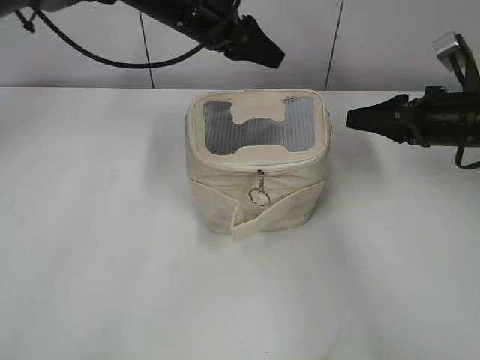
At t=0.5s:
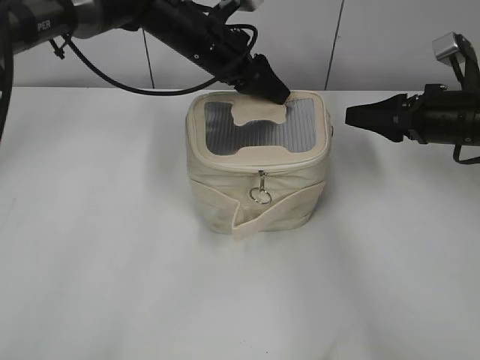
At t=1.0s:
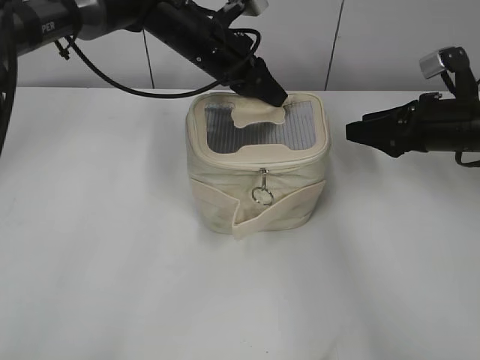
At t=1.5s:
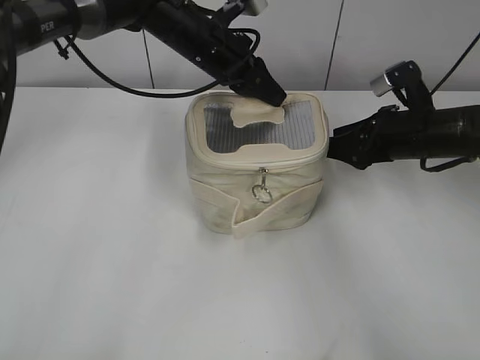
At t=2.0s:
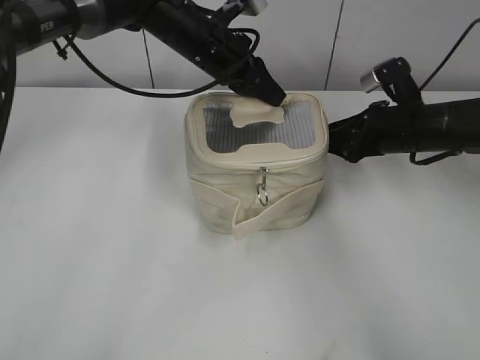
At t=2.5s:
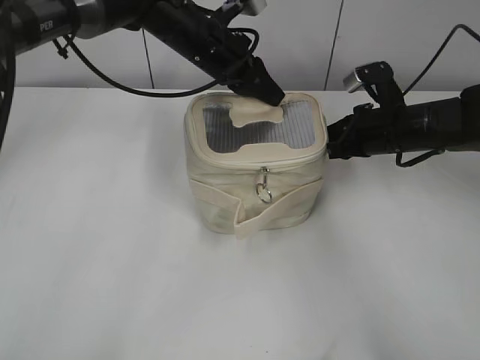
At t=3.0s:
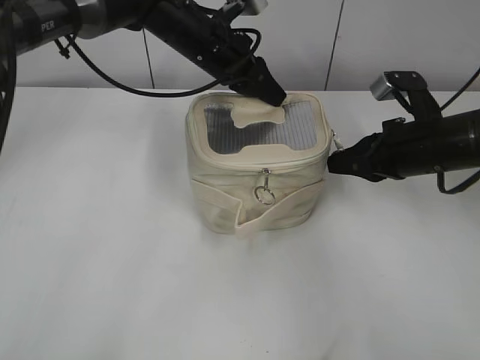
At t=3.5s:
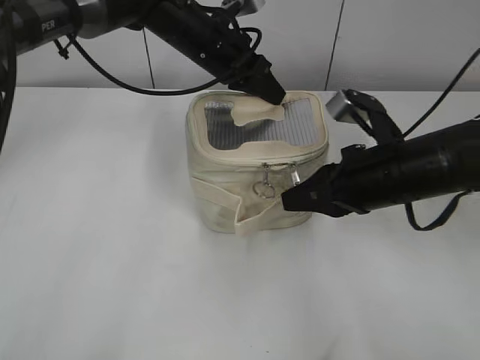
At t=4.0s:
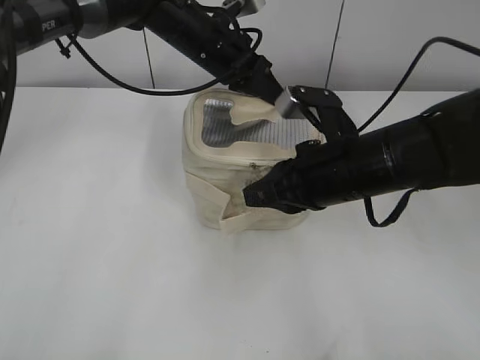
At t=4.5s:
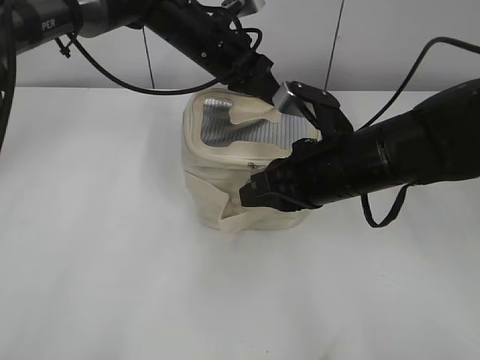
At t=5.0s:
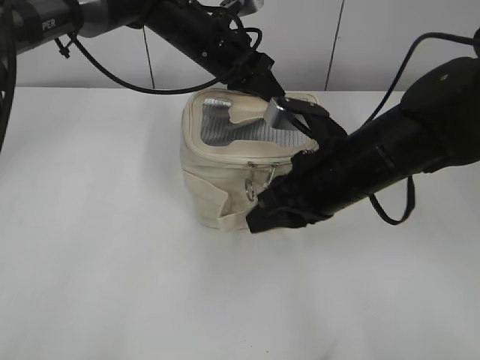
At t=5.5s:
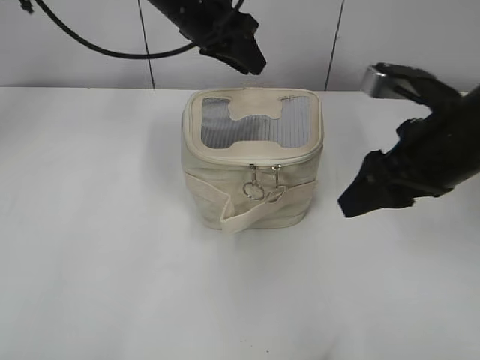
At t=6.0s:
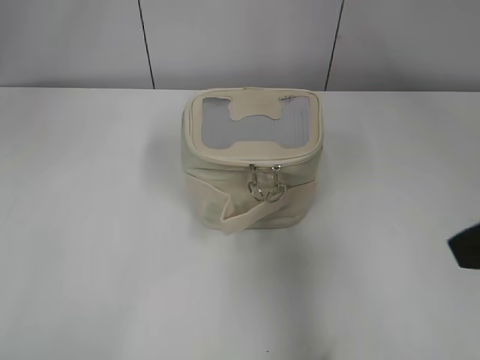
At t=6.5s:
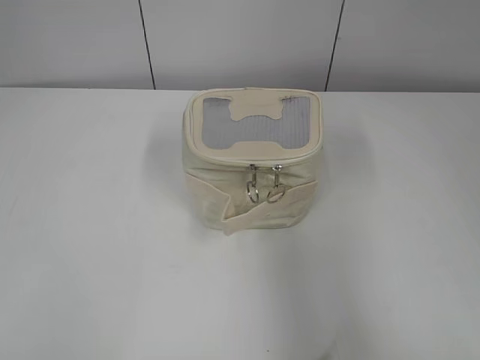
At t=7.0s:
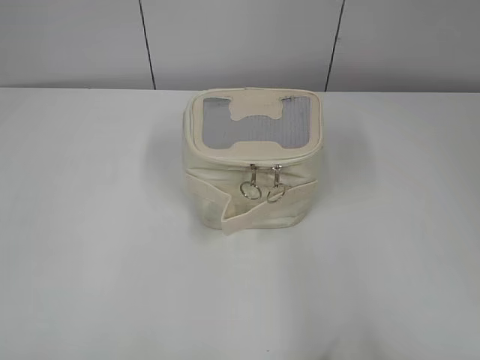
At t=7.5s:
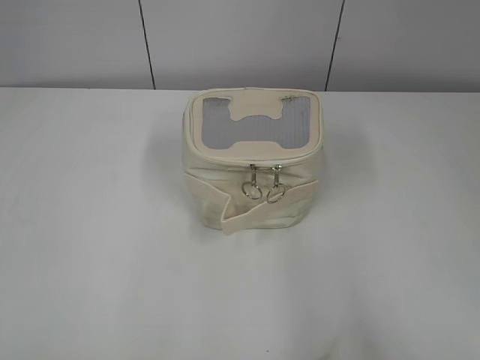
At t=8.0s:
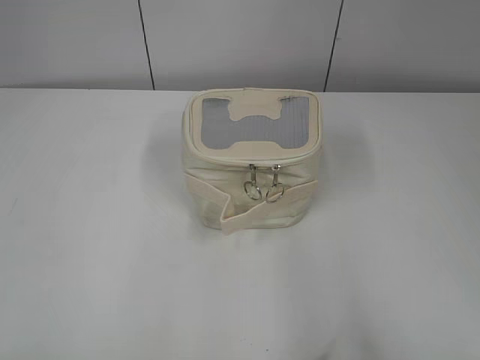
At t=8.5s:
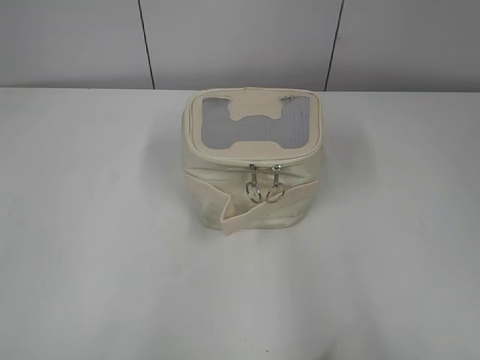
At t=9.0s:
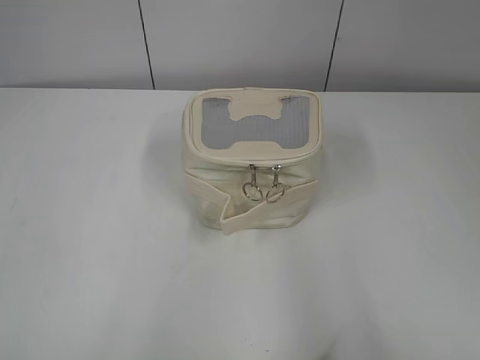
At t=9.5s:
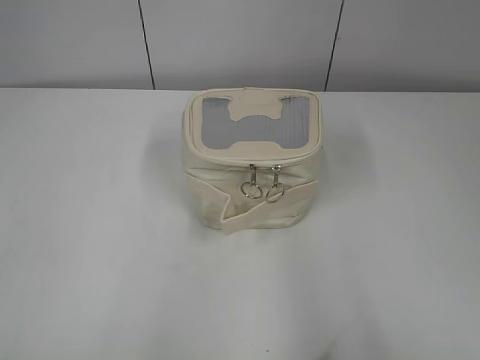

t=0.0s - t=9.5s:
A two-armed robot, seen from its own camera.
Step, t=0.0s - t=5.0s: Zip up the bag with your right hand.
t=0.0s - t=2.0s: The right gripper changes place by some 5 cm, while the left gripper closes its fingers.
t=2.0s - t=4.0s: The right gripper shifts roughly 15 cm to the left and backward, and closes its fingers.
t=4.0s - t=5.5s: The right gripper travels to the right and upward by roughly 10 cm, and opens up. Meanwhile the left gripper goes roughly 5 cm upward.
t=5.5s - t=7.5s: The right gripper moves backward, some 25 cm; the left gripper is displaced backward and to the left by roughly 50 cm, and opens.
